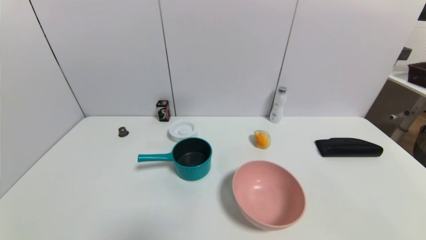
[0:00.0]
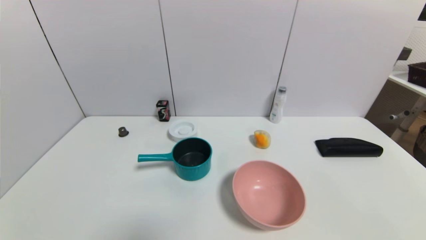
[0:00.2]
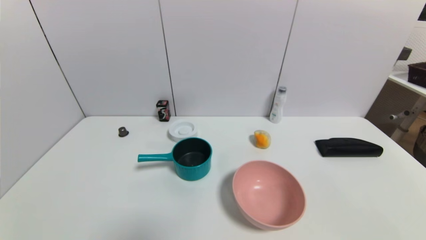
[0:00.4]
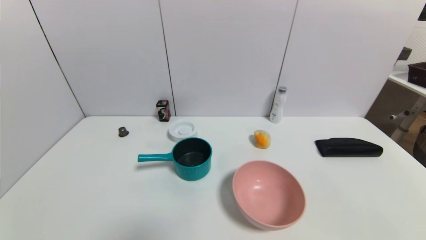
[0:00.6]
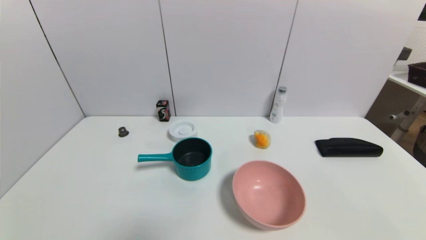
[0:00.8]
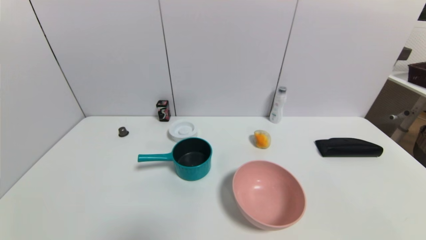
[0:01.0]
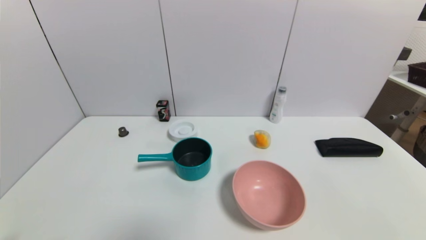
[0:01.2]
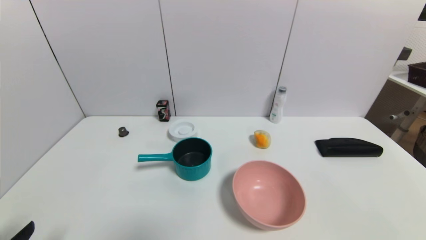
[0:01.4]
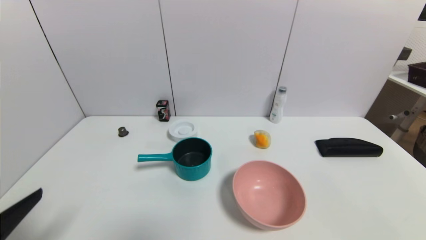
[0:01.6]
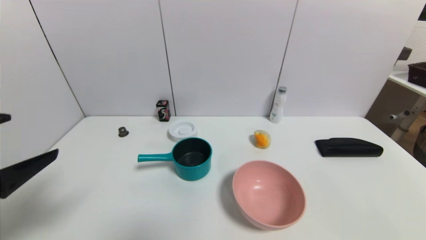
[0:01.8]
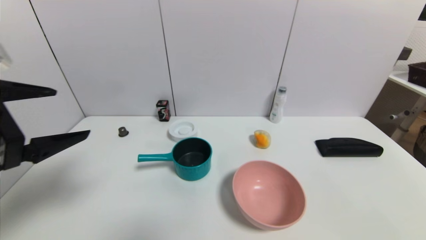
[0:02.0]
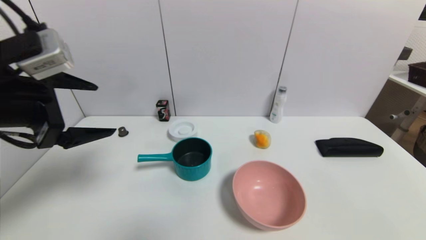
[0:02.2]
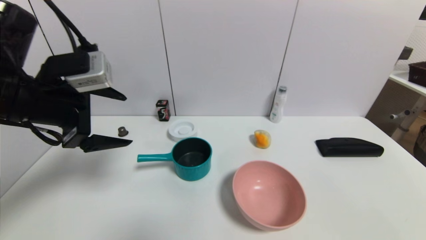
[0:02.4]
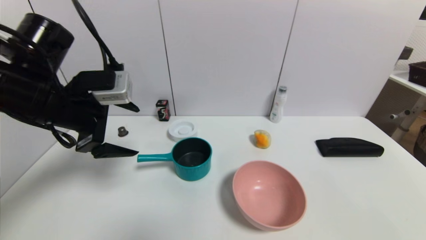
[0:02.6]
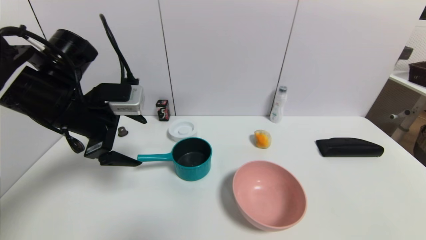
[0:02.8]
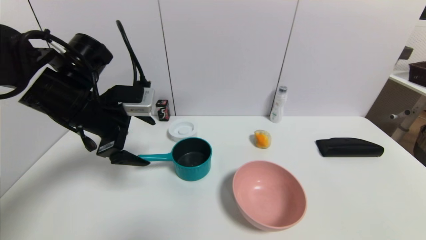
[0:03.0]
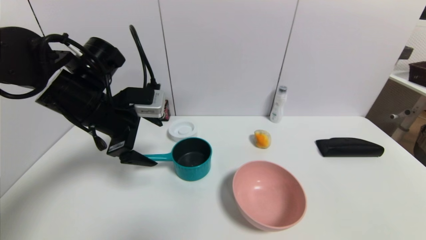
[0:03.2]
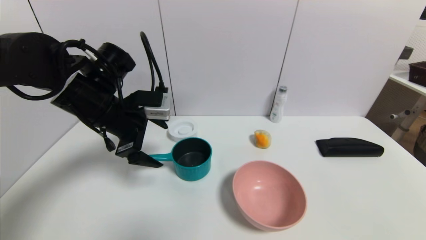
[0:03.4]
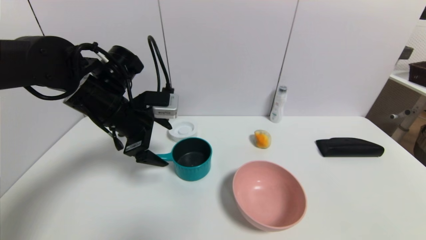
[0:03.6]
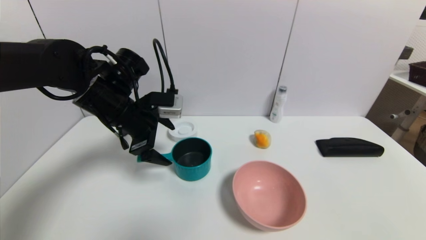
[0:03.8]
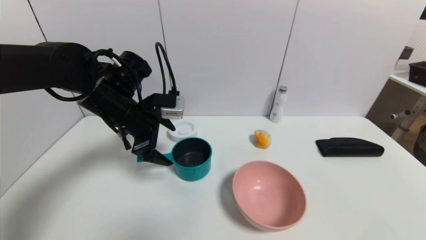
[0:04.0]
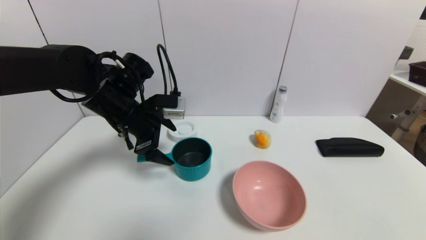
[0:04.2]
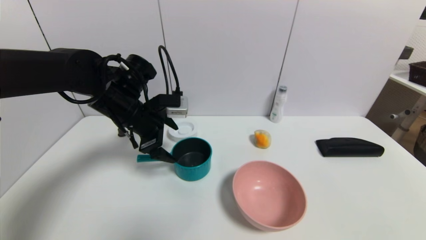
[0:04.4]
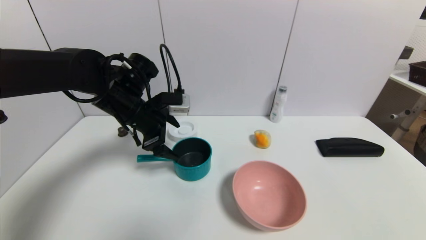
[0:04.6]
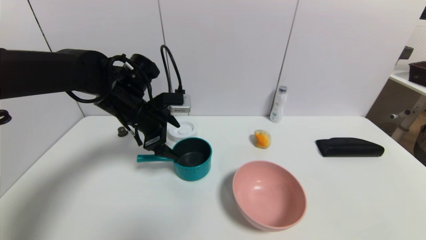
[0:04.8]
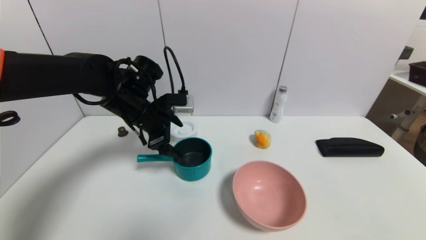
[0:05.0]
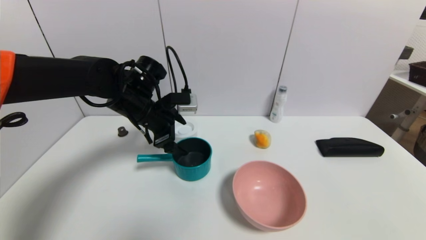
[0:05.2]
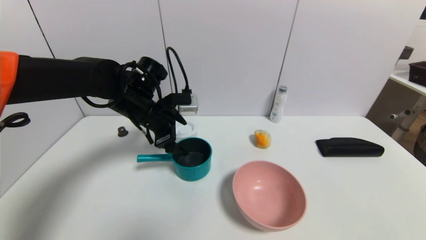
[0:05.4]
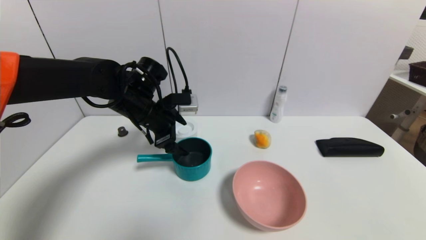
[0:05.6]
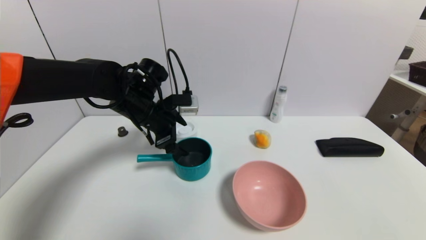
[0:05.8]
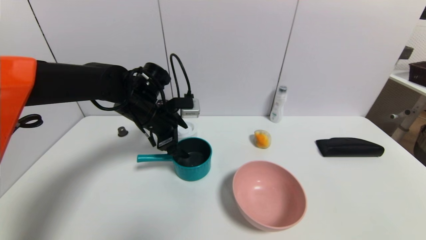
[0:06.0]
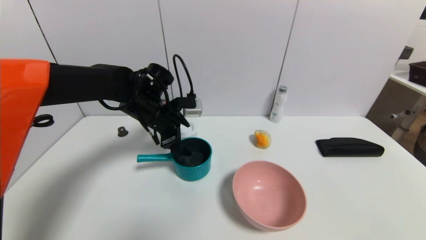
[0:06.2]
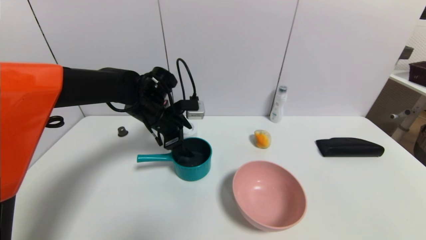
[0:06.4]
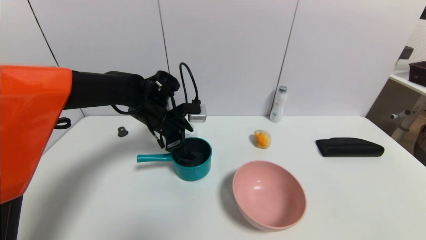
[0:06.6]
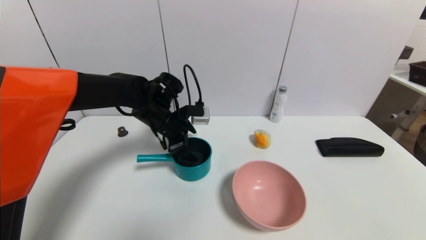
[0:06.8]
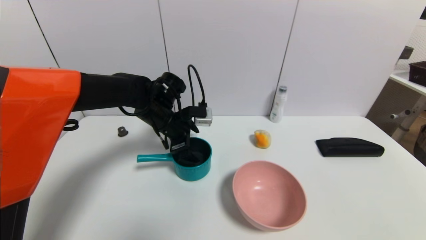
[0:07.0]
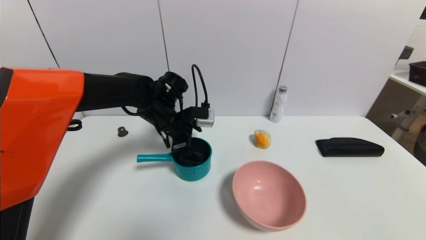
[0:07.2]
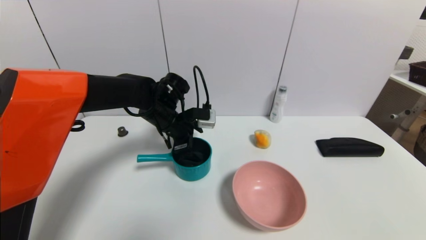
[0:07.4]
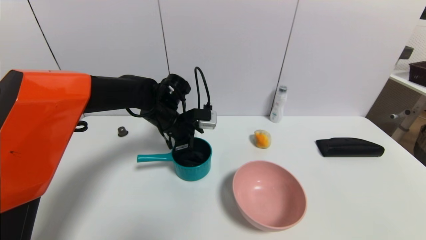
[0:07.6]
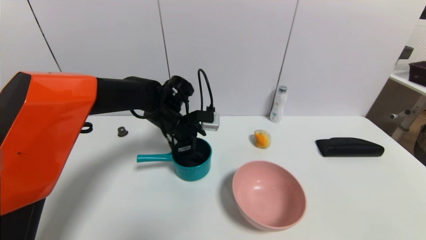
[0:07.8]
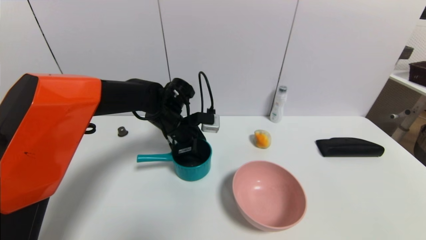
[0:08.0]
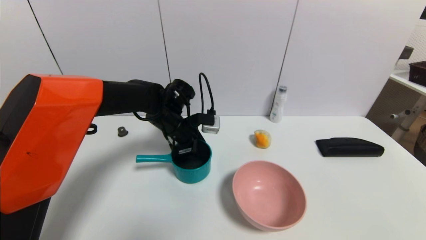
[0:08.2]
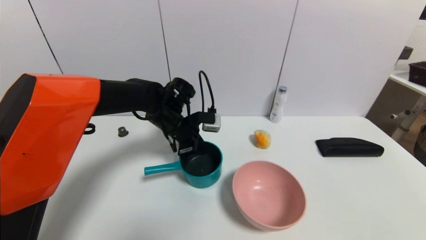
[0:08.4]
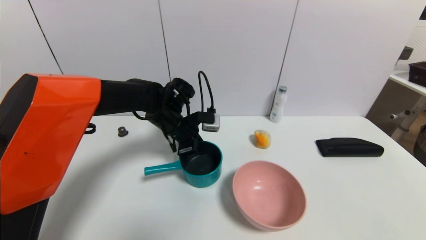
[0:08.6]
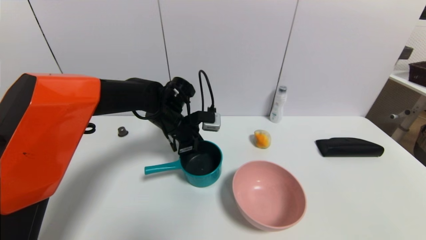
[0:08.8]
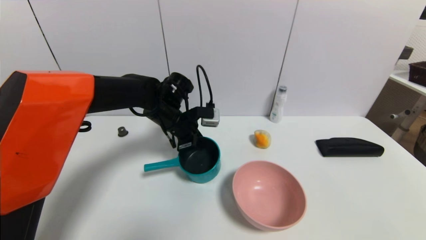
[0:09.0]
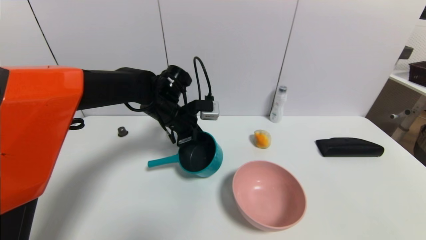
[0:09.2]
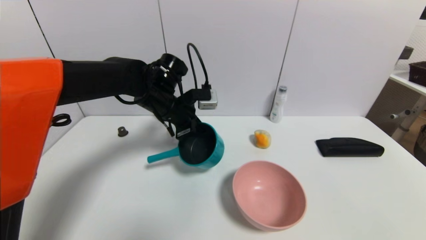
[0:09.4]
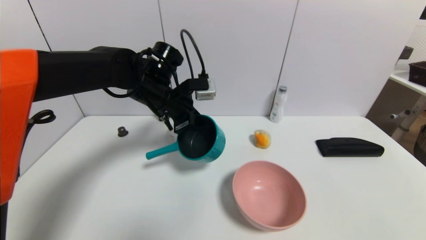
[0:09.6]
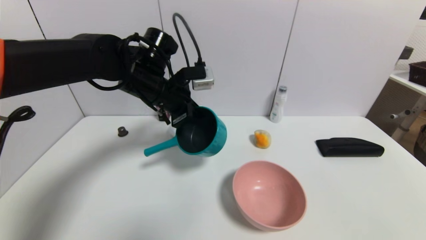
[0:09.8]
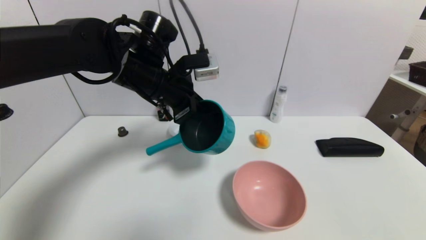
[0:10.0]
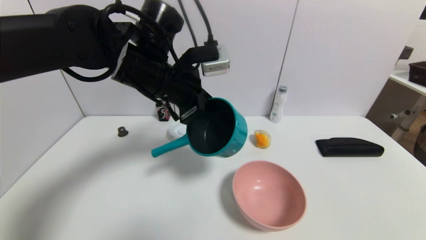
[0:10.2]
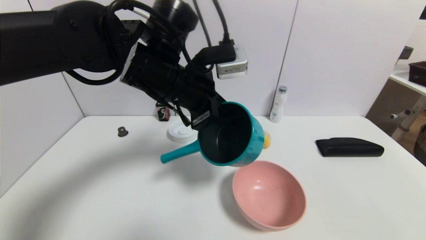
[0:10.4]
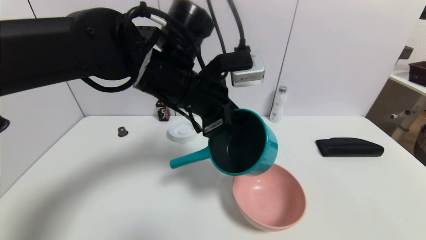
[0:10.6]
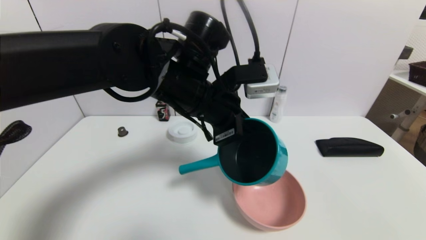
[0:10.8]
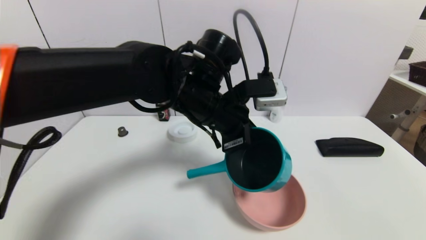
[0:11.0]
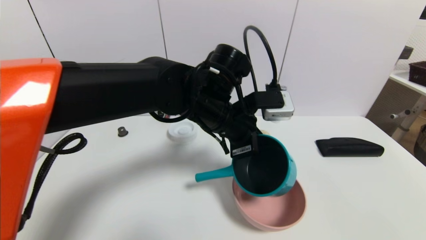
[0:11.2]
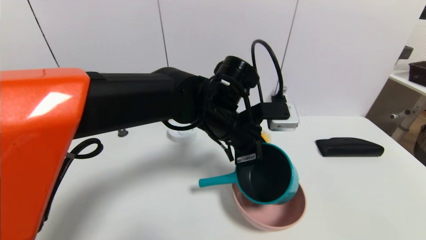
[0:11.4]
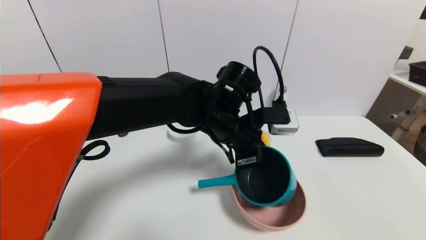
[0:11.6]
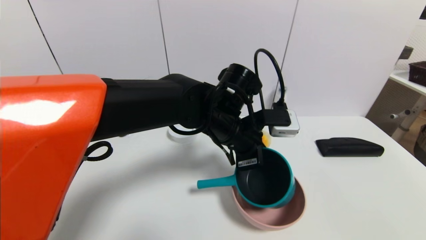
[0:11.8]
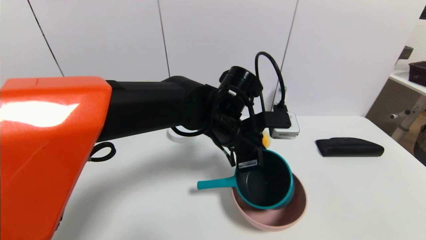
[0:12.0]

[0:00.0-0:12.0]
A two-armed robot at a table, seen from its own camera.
Task of the whole recording: use a gripper to pick the target object and place on the pink bowl.
Step, 0:00.0 to 0:08.4: Grasp the blue pot with the left gripper.
0:00.0 to 0:01.6: The left gripper goes approximately 15 cm upward and forward.
0:01.6 to 0:03.0: The left gripper goes approximately 25 cm forward.
0:03.0 to 0:04.4: The left gripper shifts some 5 cm forward.
0:04.4 to 0:06.0: The grippers make only small movements.
0:06.0 to 0:07.6: The left gripper changes place by some 5 cm.
0:07.6 to 0:09.0: The left gripper closes.
0:09.0 to 0:10.4: The left gripper goes some 15 cm upward and backward.
0:10.4 to 0:12.0: The left gripper travels to the right and downward by approximately 15 cm.

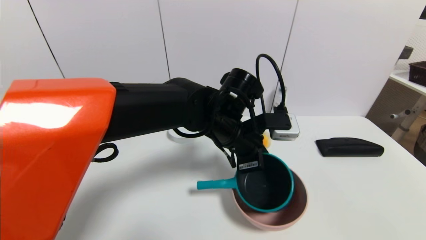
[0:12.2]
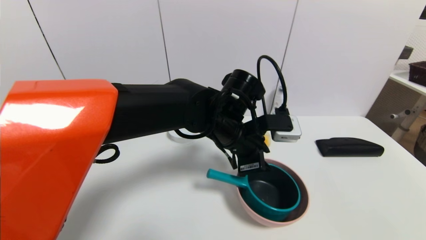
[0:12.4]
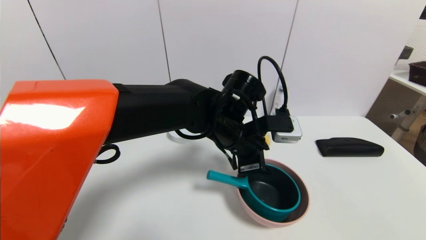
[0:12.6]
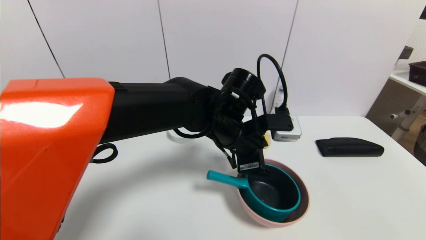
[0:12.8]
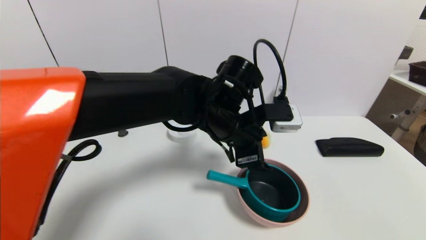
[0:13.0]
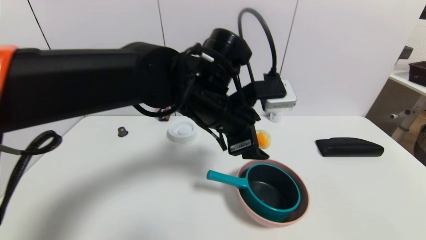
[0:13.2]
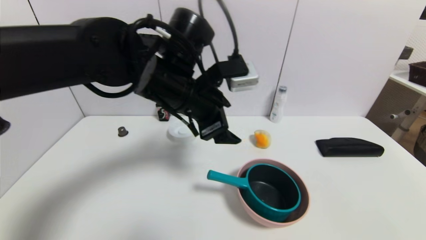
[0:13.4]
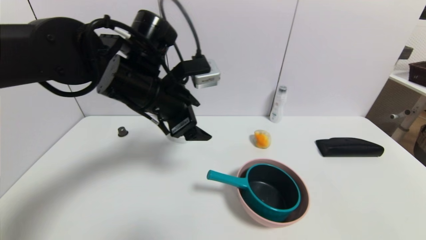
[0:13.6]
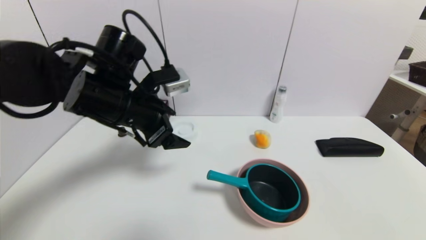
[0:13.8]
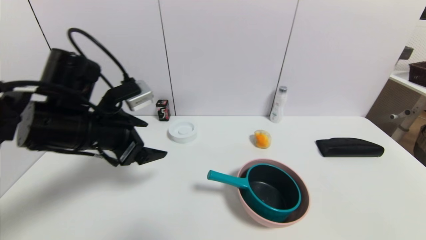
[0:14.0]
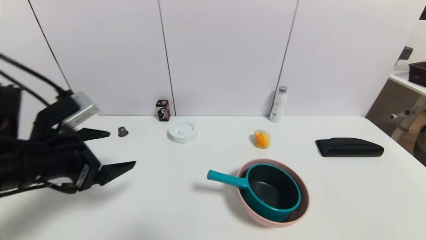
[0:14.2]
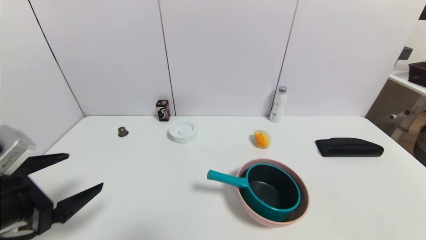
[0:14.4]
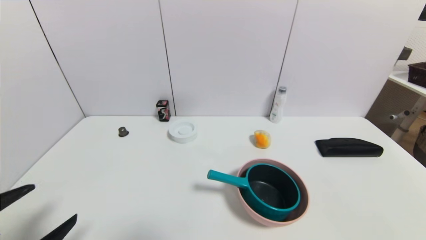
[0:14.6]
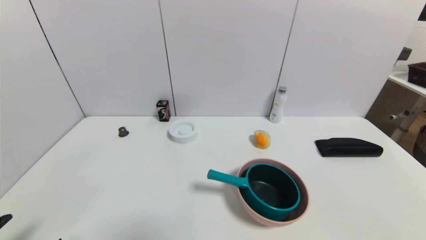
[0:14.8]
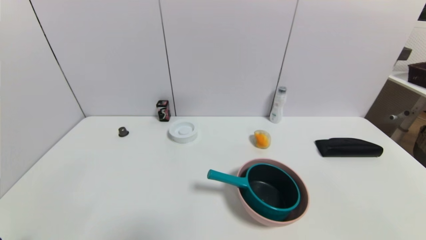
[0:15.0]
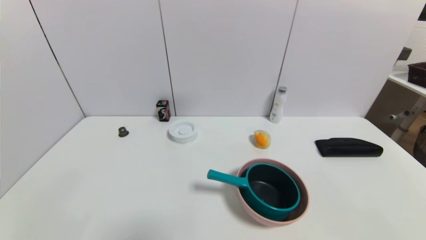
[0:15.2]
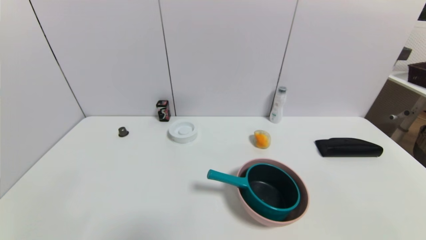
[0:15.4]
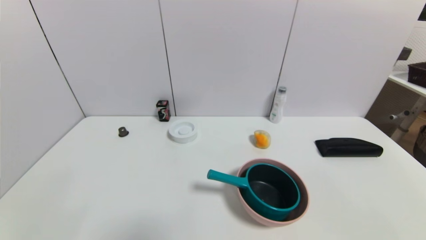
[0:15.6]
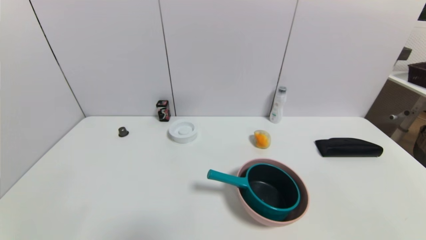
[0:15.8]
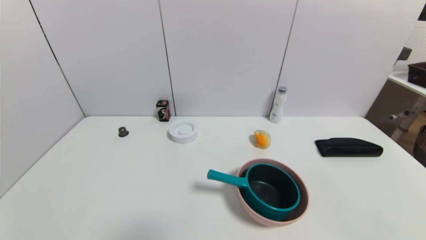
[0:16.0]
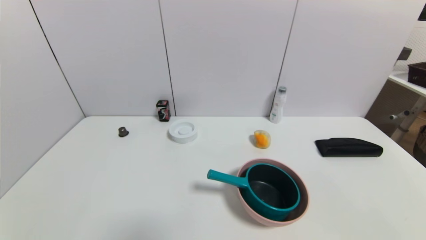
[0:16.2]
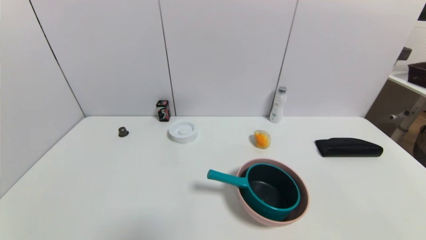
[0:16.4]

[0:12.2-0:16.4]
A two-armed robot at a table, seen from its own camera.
Task of the whole recording: use a gripper to pick the target object and place on the pink bowl.
0:12.2 to 0:13.6: The left gripper moves to the left and upward, approximately 15 cm, and opens.
0:13.6 to 0:15.0: The left gripper moves backward, downward and to the left, some 40 cm.
